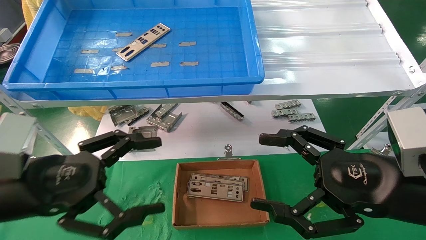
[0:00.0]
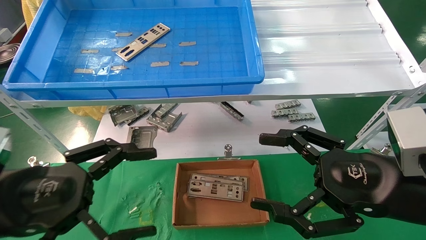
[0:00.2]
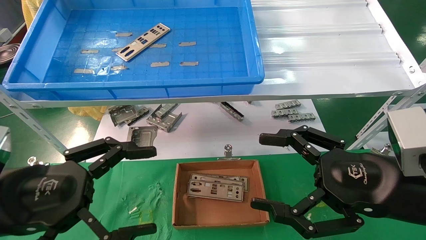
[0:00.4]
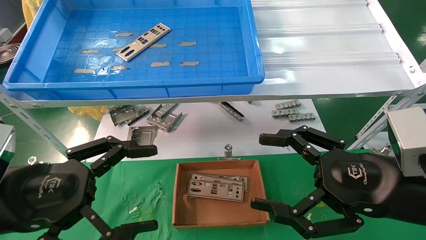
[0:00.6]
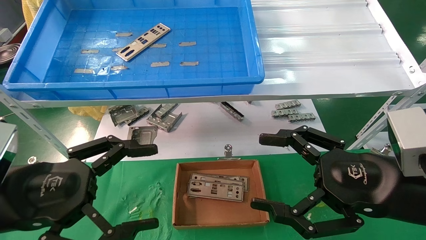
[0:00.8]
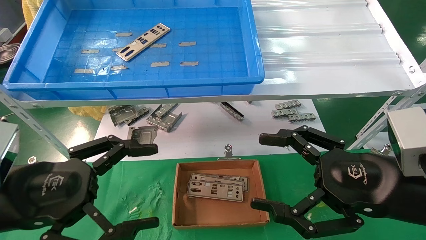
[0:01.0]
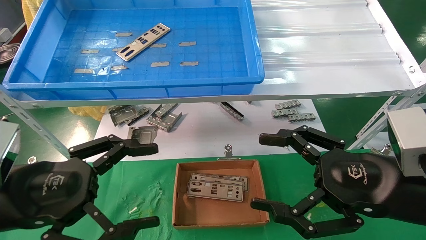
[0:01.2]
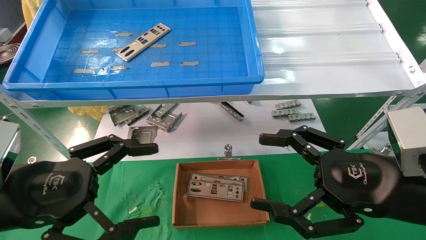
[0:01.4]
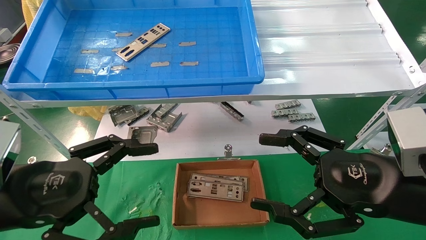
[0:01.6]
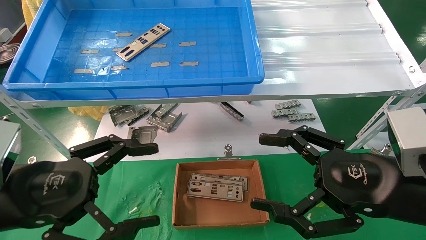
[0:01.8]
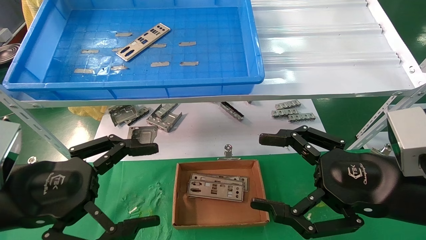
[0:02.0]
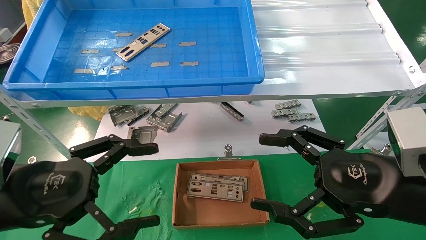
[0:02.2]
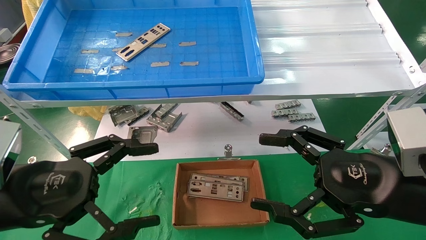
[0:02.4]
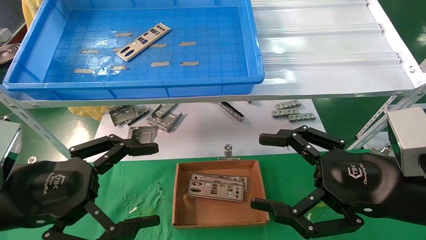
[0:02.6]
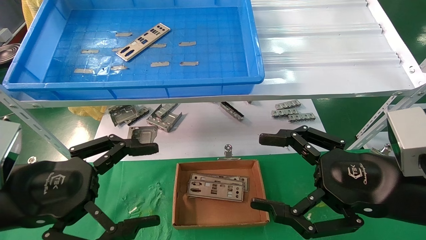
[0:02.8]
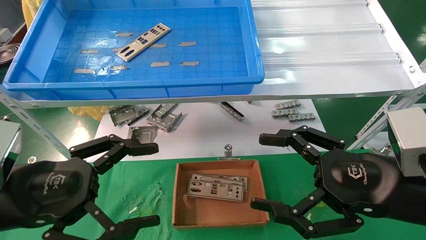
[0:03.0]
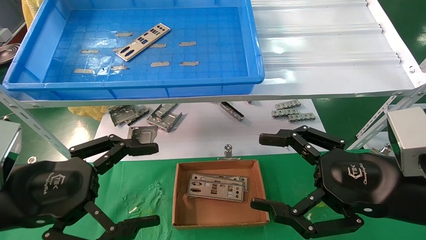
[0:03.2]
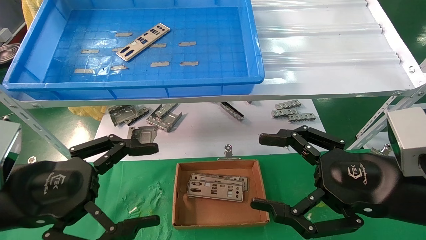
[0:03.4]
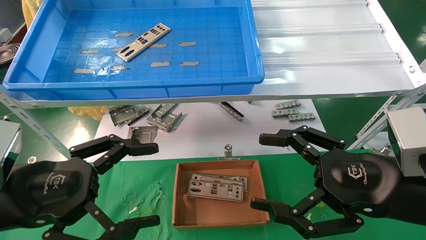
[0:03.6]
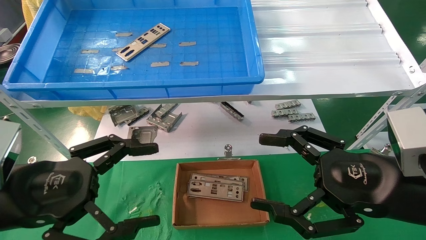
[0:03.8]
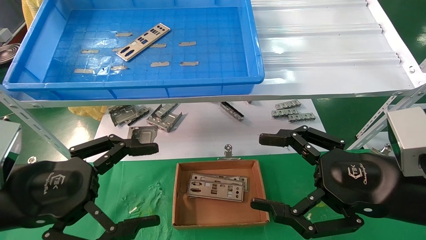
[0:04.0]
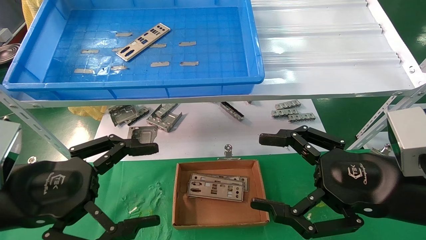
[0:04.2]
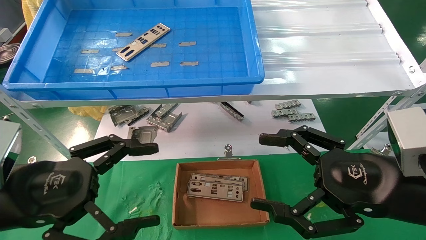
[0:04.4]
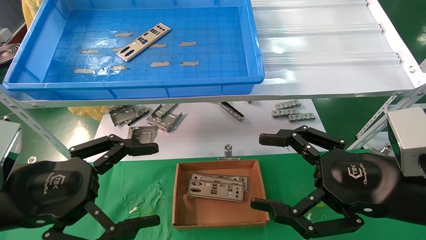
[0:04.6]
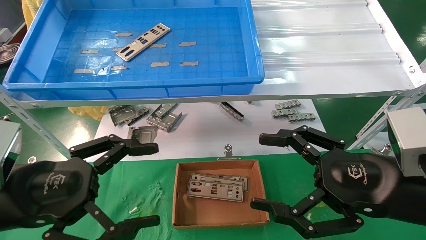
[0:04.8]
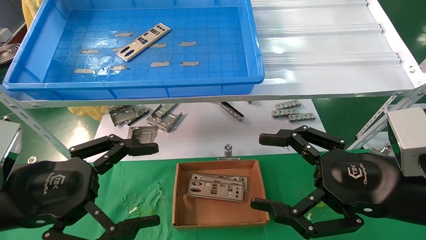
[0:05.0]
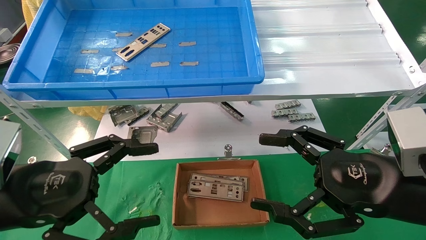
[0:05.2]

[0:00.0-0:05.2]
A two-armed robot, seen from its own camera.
Task of the whole recording: pick up the parts on the tray and put them in the cardboard box.
0:00.0 to 0:01.8: There are only small adjustments of the grippers.
0:01.8 to 0:05.2: Both grippers stay about where they are.
